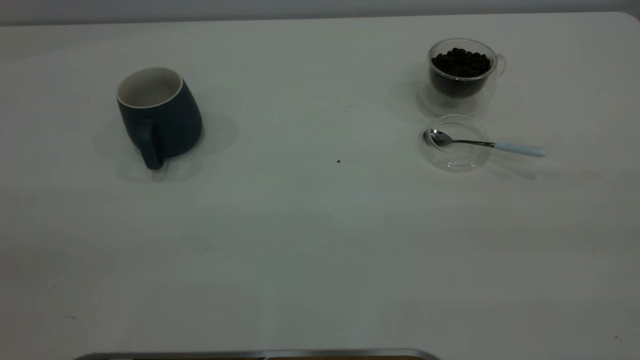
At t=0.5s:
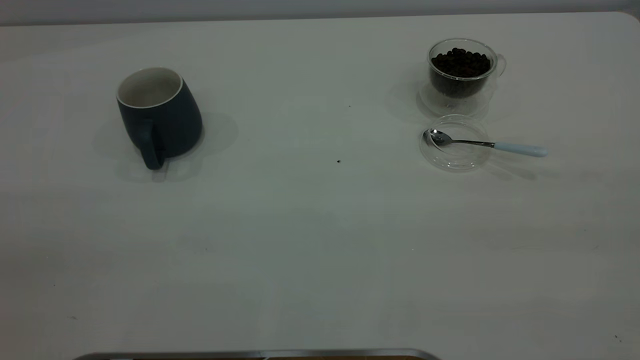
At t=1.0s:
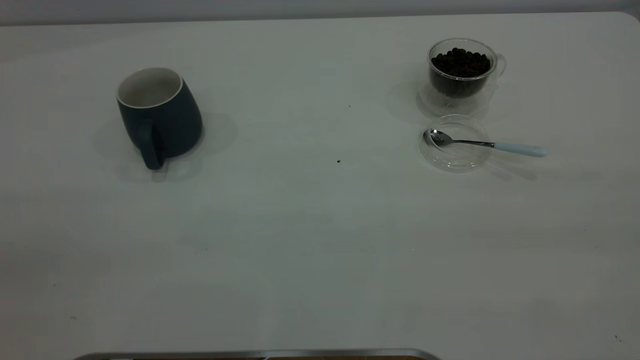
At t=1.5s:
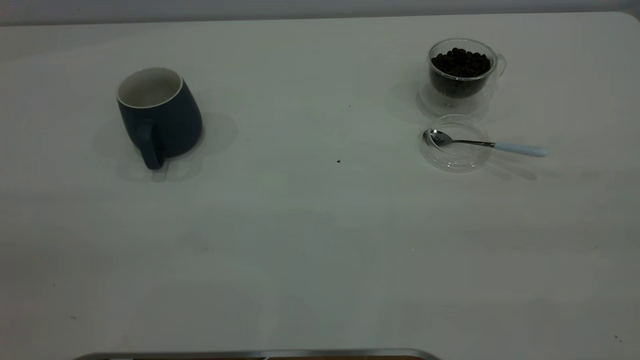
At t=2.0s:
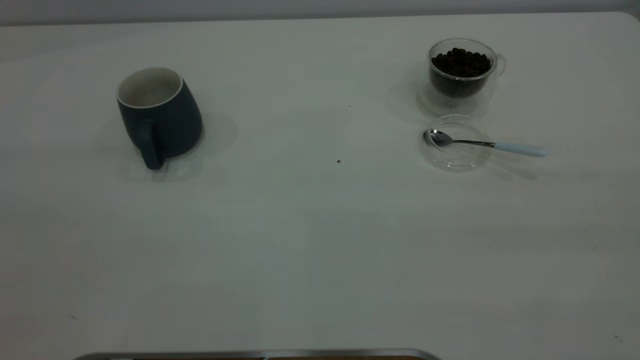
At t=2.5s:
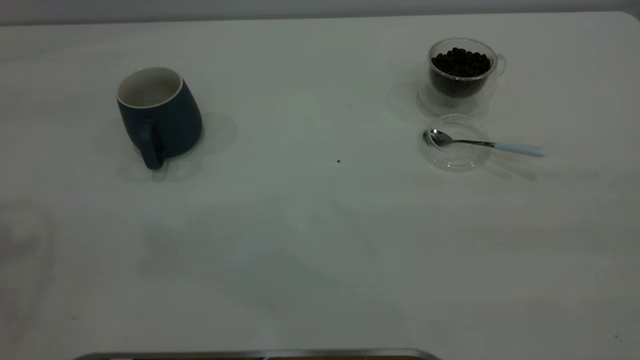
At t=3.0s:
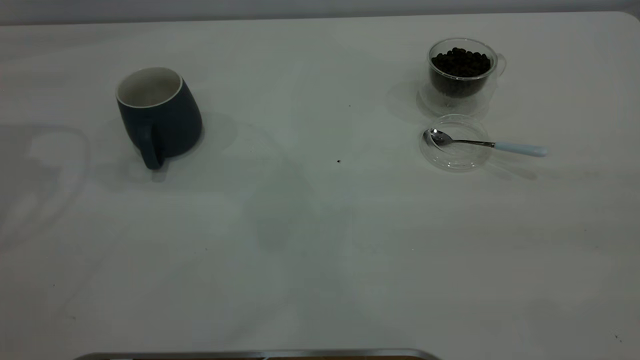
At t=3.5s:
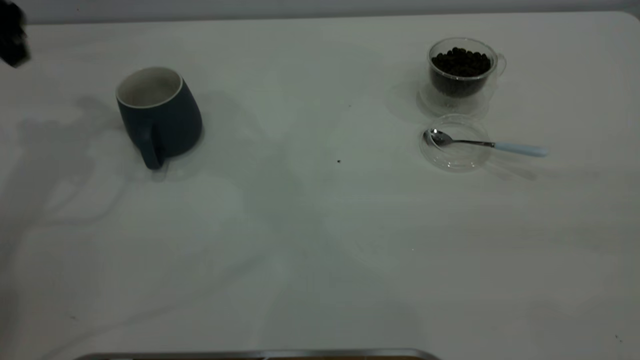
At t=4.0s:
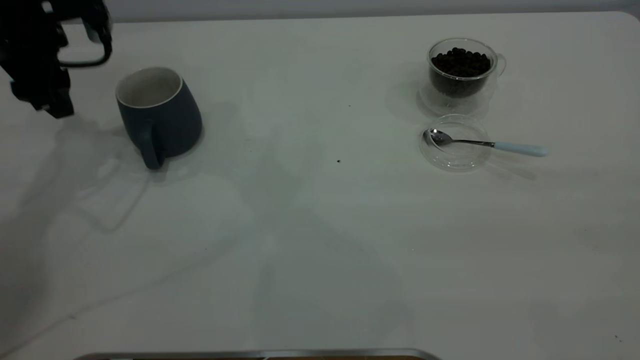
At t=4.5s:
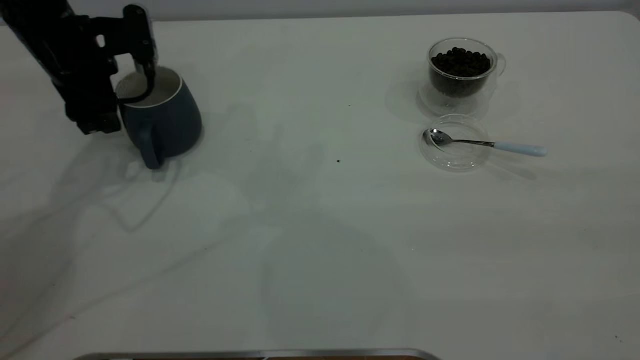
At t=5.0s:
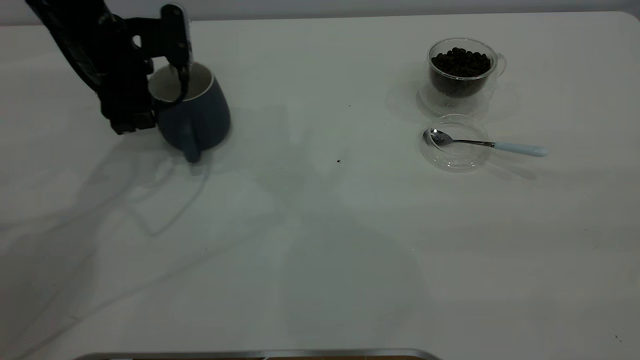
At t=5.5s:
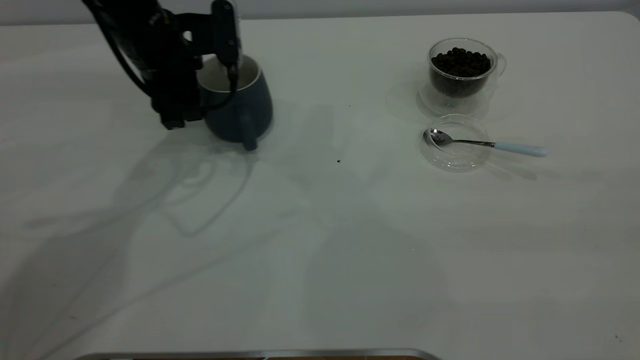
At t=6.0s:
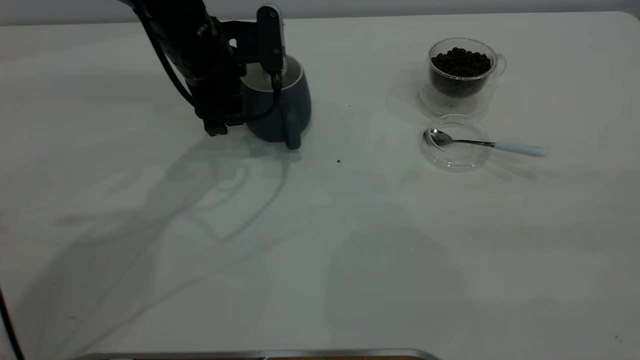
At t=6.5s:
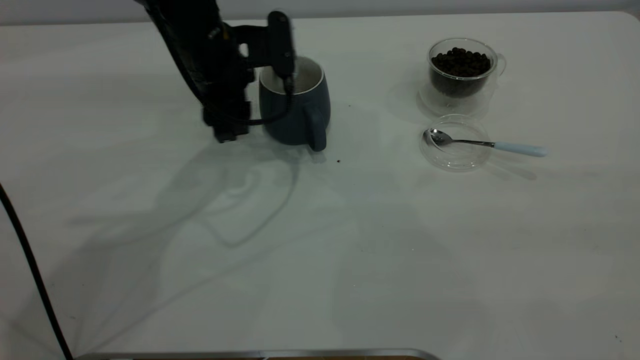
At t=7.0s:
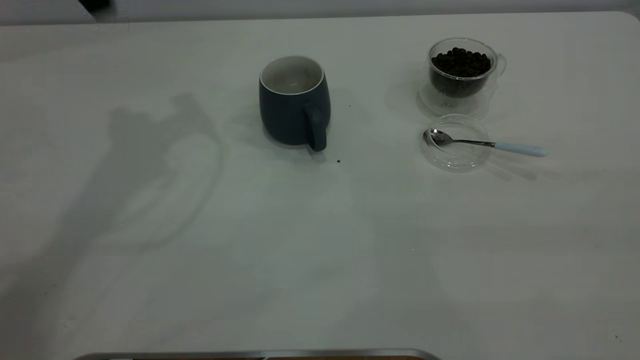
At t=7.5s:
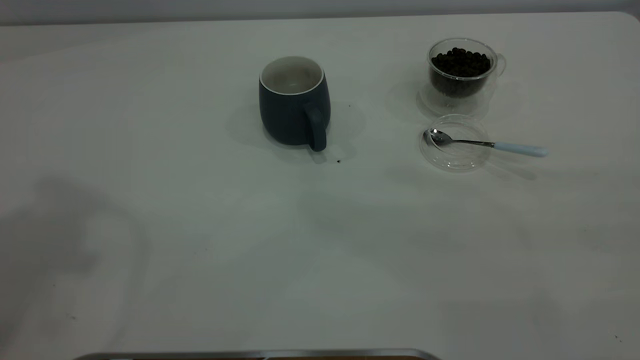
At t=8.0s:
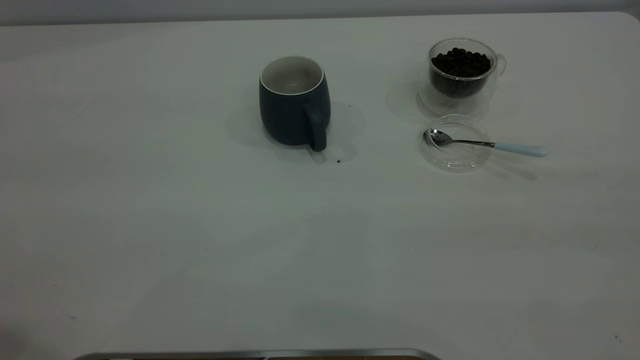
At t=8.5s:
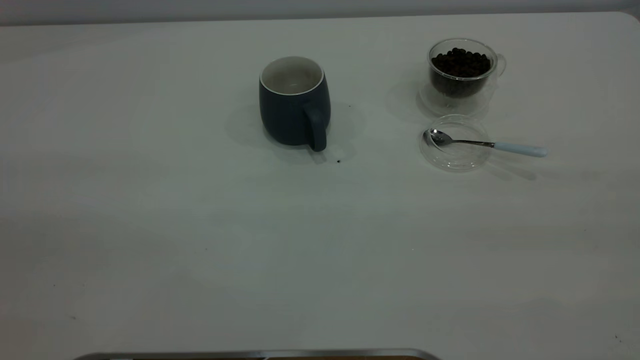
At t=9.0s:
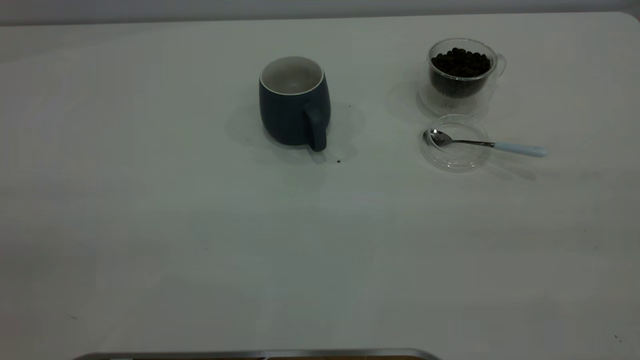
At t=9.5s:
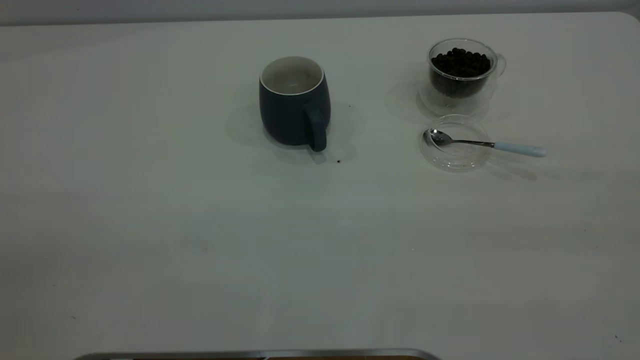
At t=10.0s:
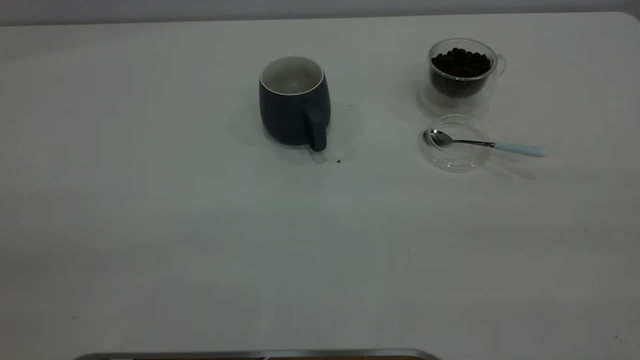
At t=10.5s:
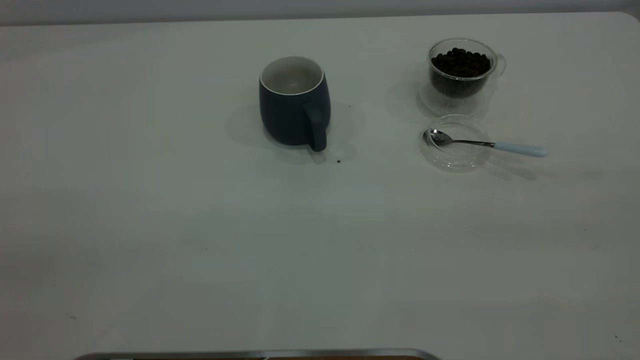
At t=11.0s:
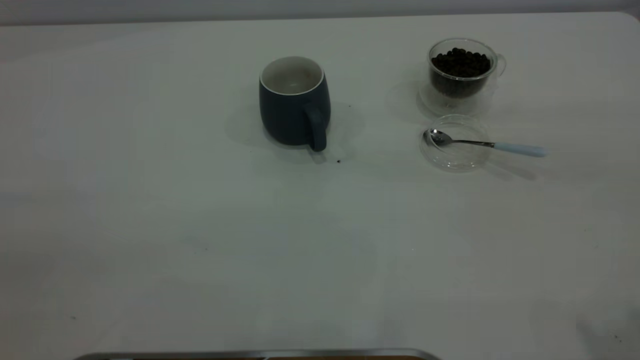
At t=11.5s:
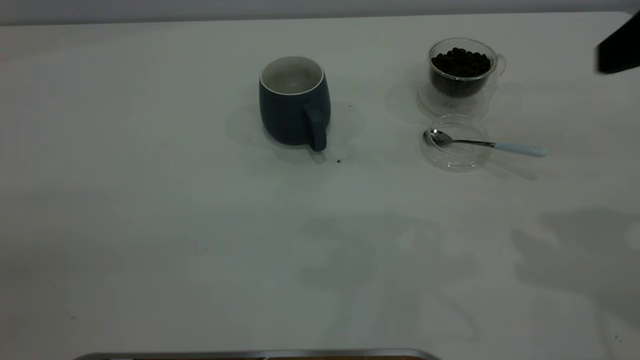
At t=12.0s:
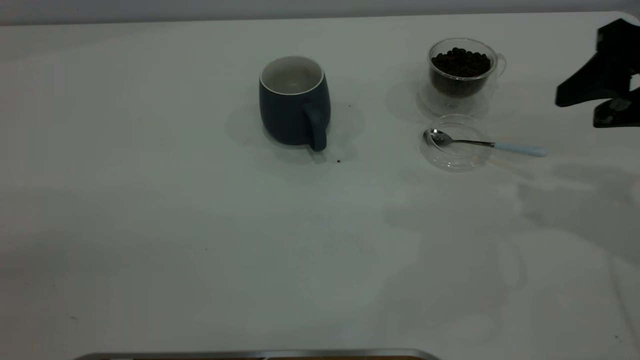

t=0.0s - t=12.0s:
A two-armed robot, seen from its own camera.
Task of the whole recording: the left gripper place the grey cup in the center of the table, the right gripper take the blue spoon from the cup lid and scoop out the coffee beans from the coffee cup and put them into the grey cup, the right gripper put the spoon back into the cup lid.
Step, t=0.0s - t=6.5s: Move the cup to the center of view.
t=2.0s - t=4.0s: The left gripper travels forward and downward by about 40 cm.
t=4.0s - t=6.0s: The left gripper shifts about 15 cm to the right.
t=6.0s - t=8.0s: The left gripper is displaced backward, upward and to the left by roughly 50 cm.
t=10.0s - t=12.0s: The right gripper heads forward and downward, covering about 35 cm, and opens up.

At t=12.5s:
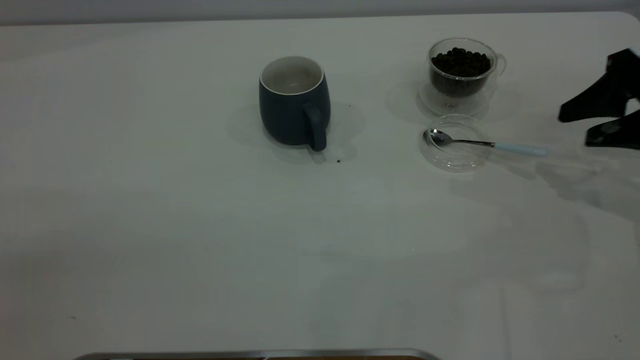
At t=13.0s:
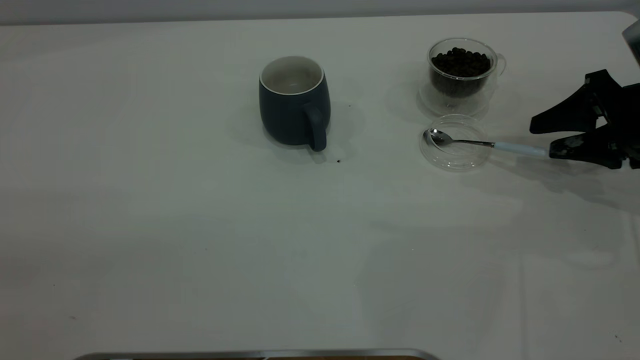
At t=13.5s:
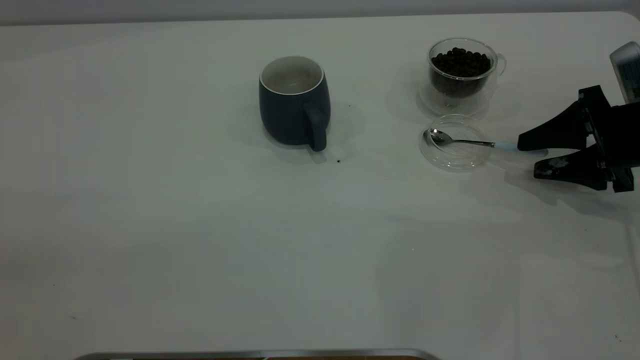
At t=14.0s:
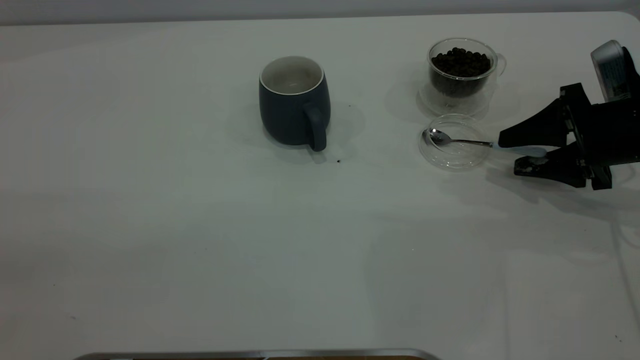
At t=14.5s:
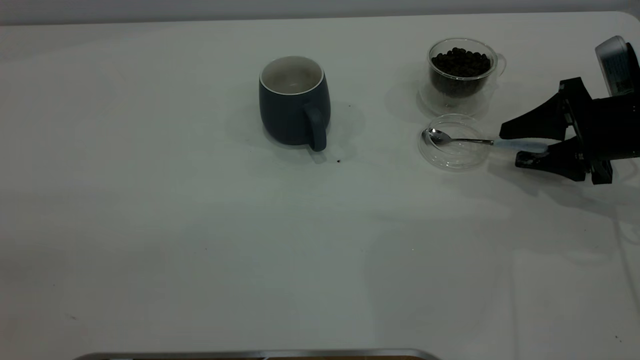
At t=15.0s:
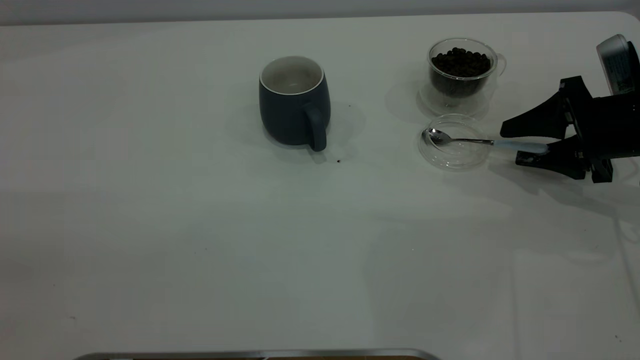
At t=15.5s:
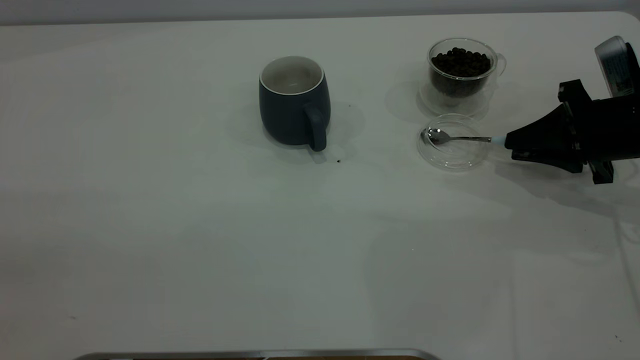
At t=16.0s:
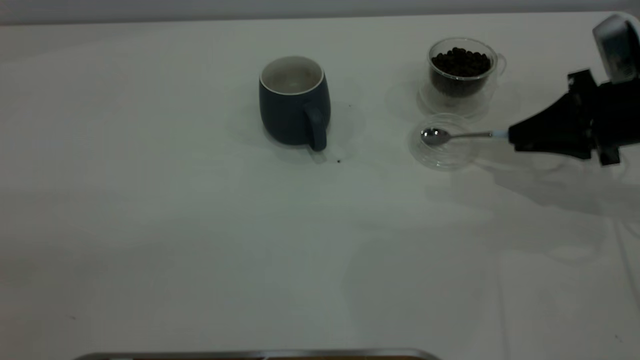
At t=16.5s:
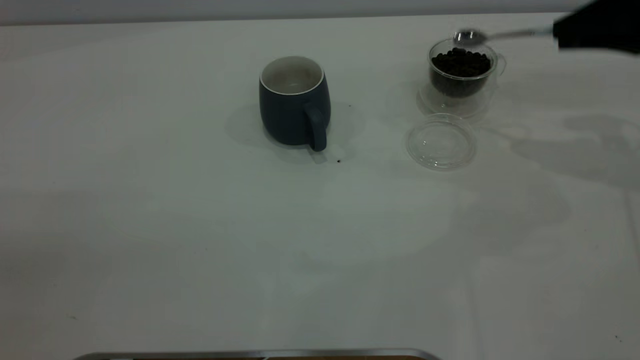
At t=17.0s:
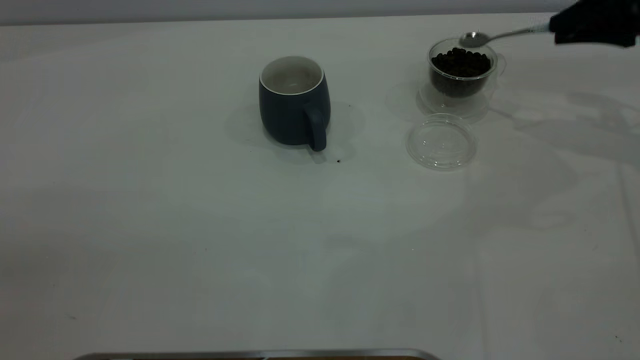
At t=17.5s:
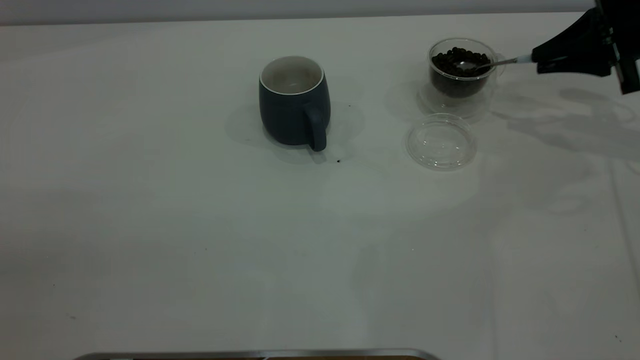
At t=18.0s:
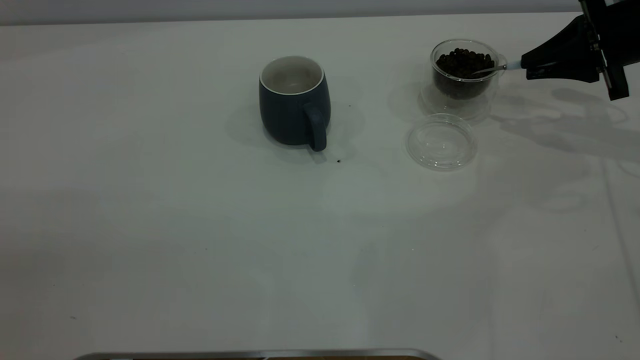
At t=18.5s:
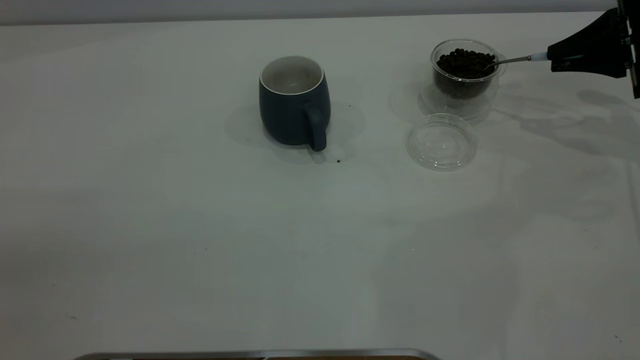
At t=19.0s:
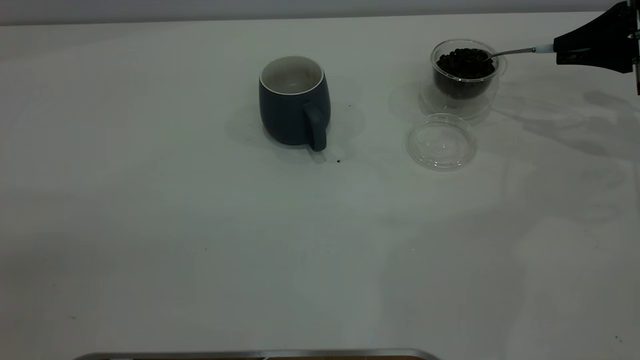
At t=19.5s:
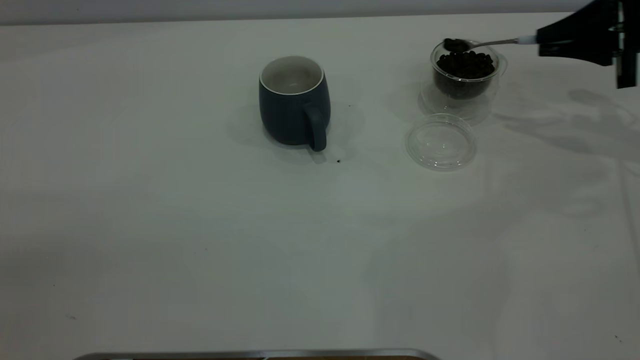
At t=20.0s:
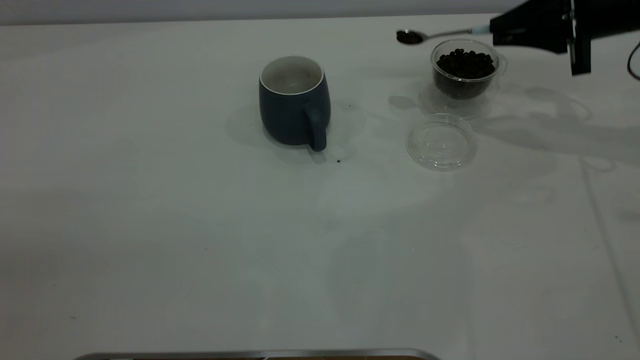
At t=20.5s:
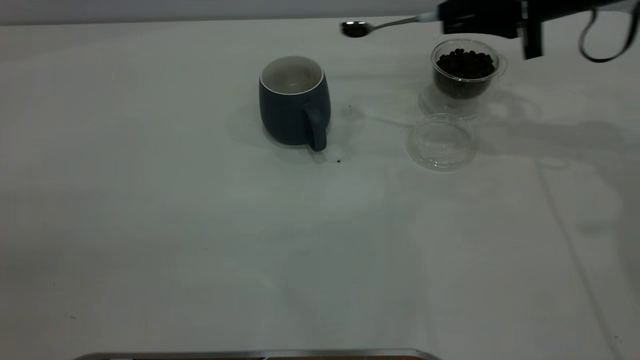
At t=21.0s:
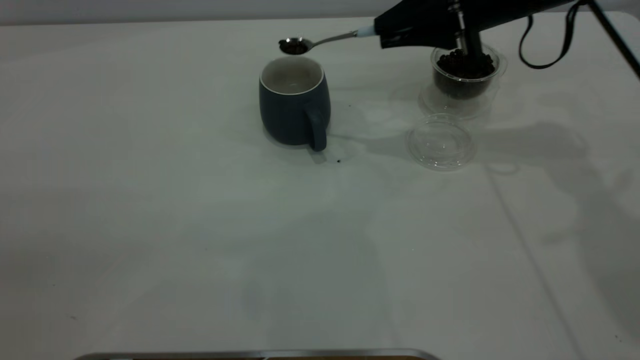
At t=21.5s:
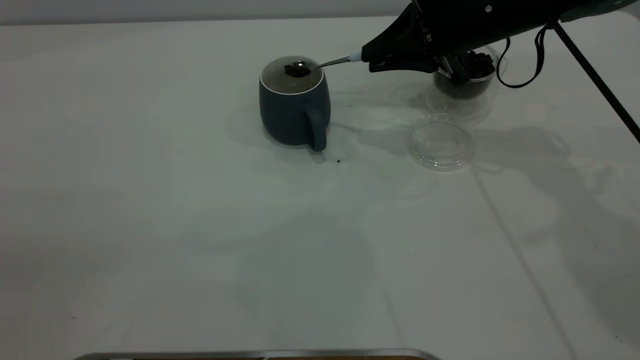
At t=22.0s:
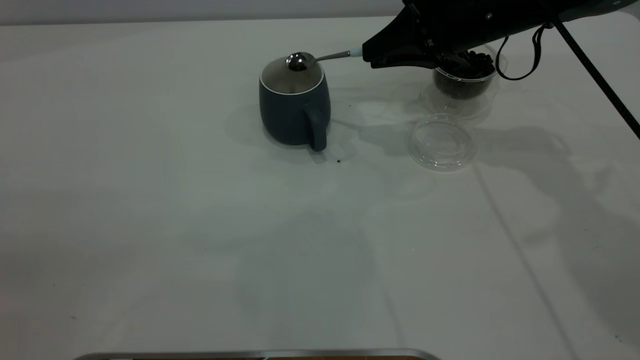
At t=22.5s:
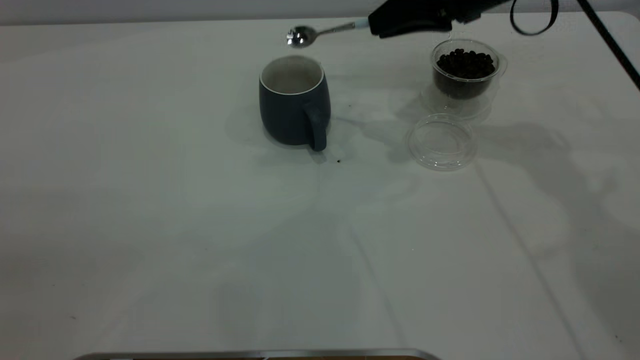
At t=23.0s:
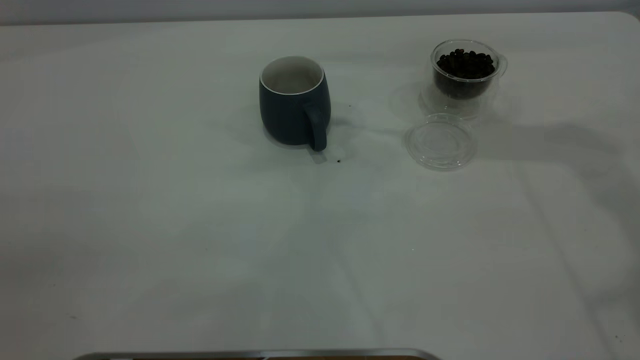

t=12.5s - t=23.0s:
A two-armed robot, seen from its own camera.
Task of the whole recording: the left gripper place the grey cup in the center of the table, the right gripper take the blue spoon from the cup lid and scoop out the coffee beans from the coffee cup and put them into the grey cup, the right gripper put the spoon back into the cup lid.
Step, t=12.5s - t=16.0s: Pick up the spoon.
Step, t=16.5s - t=22.0s: Scoop a spoonful of beans into the cup.
t=12.5s - t=14.5s: The right gripper travels downward by approximately 5 cm.
t=14.5s - t=16.5s: The right gripper moves upward, roughly 15 cm, and closes its fingers.
t=16.5s - t=19.0s: The right gripper travels downward by some 5 cm.
t=19.0s - t=21.0s: The right gripper shifts roughly 20 cm to the left.
t=21.0s - t=23.0s: The right gripper travels upward and to the right by some 15 cm.
